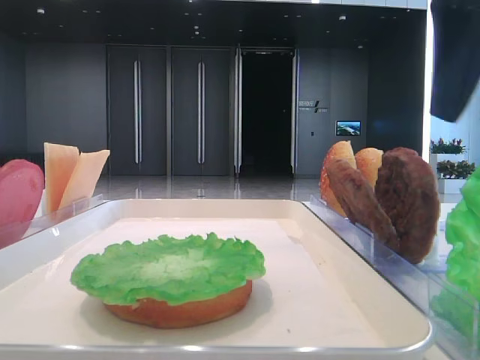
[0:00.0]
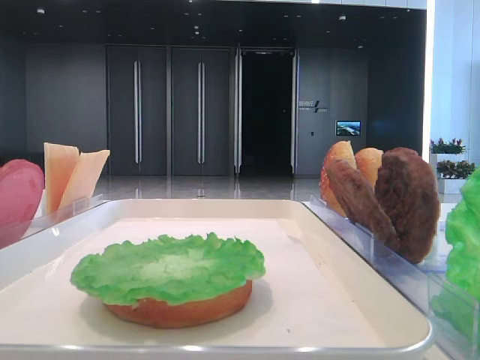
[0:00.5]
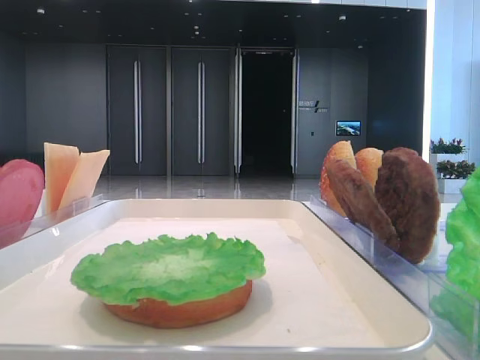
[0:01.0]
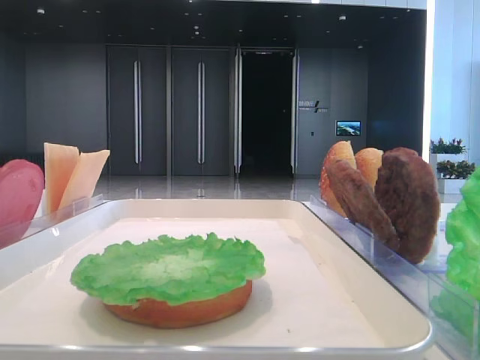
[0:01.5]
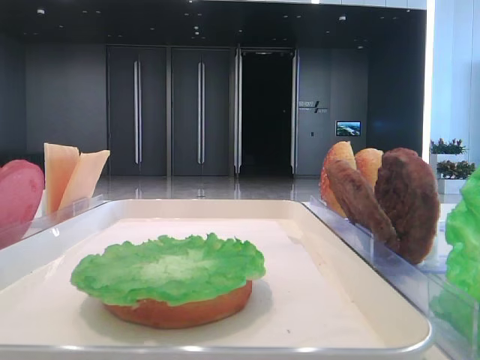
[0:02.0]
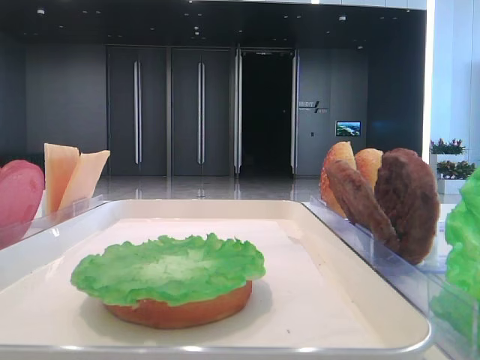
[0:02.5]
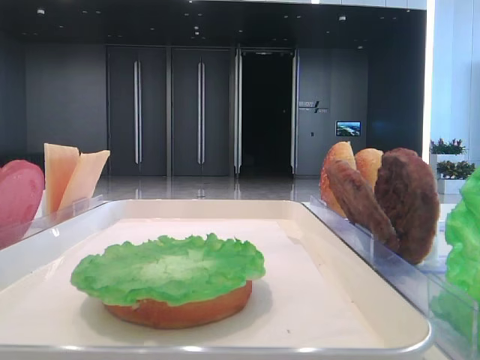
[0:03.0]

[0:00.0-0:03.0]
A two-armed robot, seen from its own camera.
0:00.0 to 0:01.5: The right gripper is displaced to the right by approximately 10 cm.

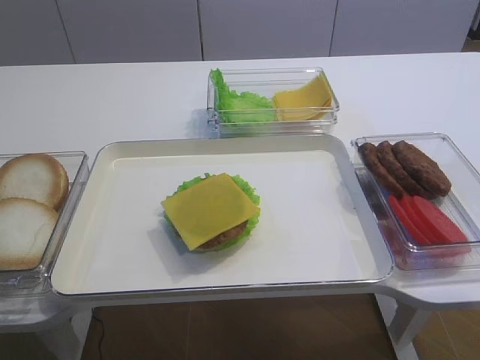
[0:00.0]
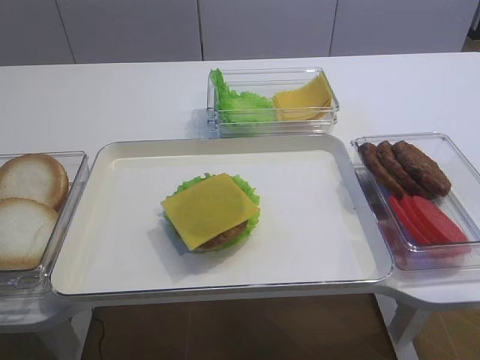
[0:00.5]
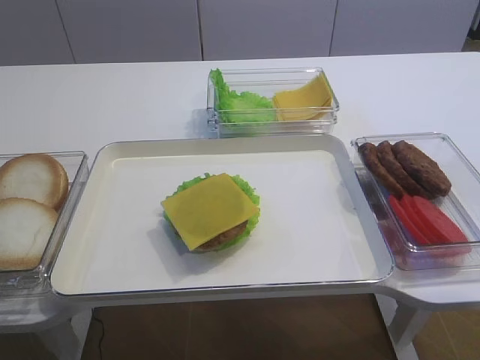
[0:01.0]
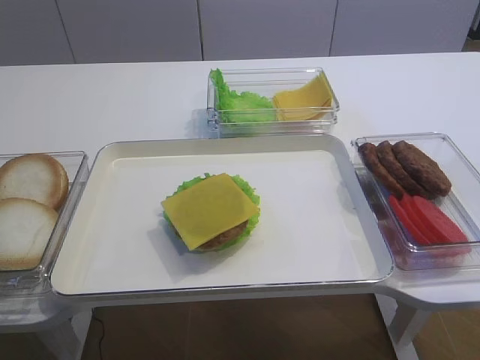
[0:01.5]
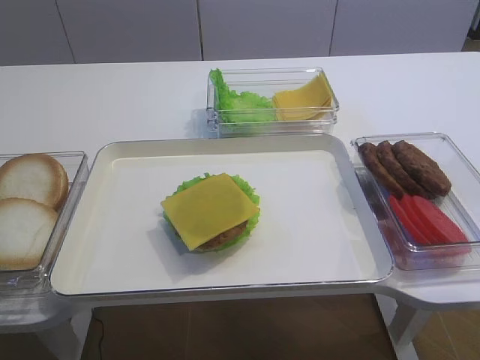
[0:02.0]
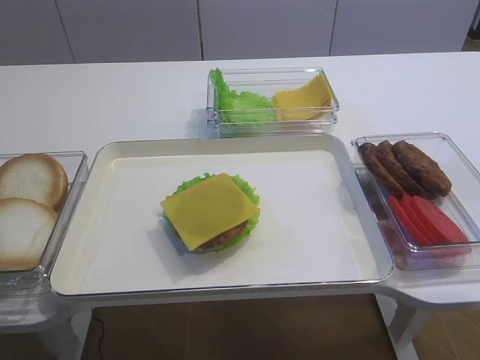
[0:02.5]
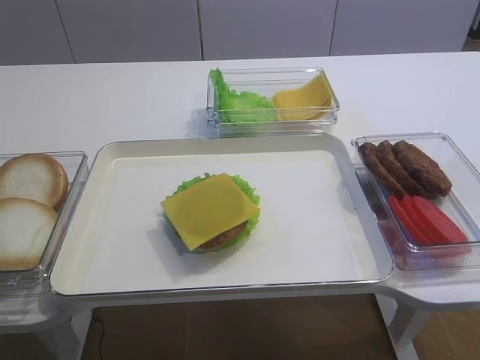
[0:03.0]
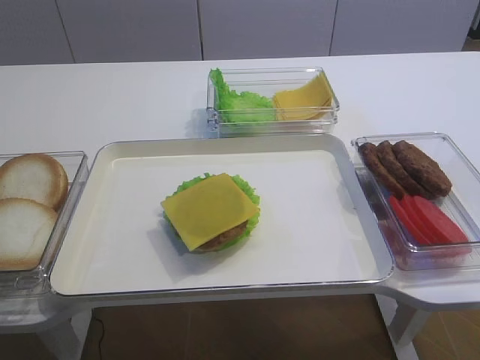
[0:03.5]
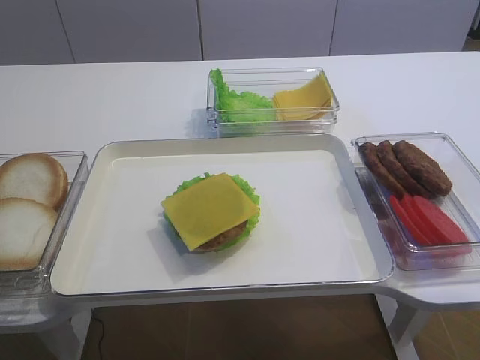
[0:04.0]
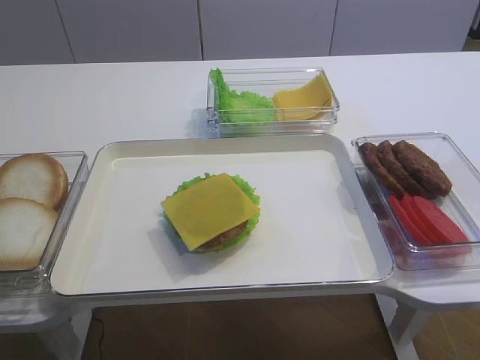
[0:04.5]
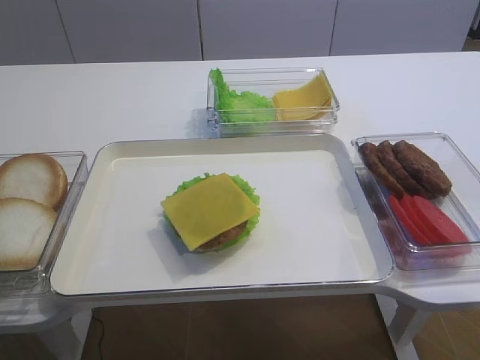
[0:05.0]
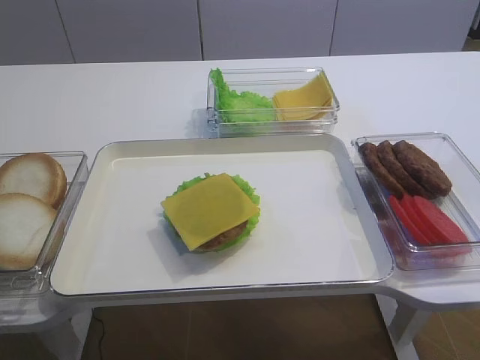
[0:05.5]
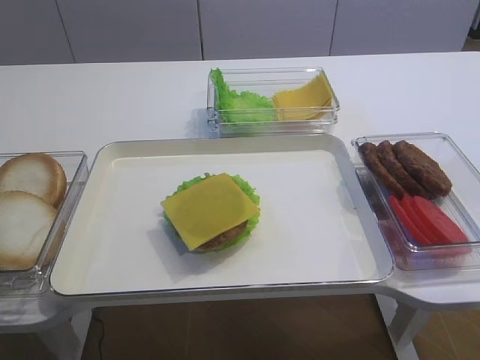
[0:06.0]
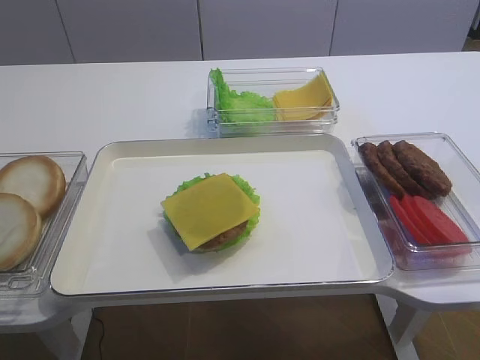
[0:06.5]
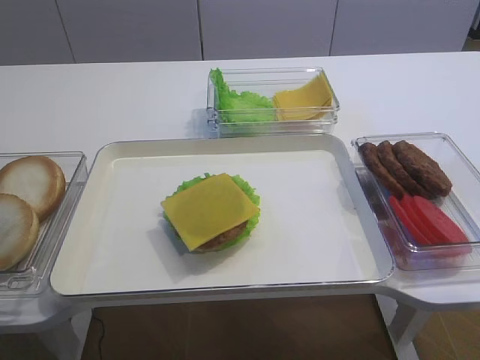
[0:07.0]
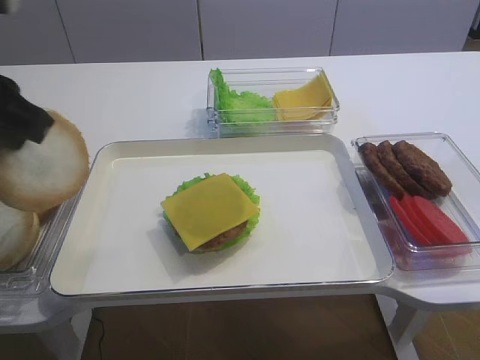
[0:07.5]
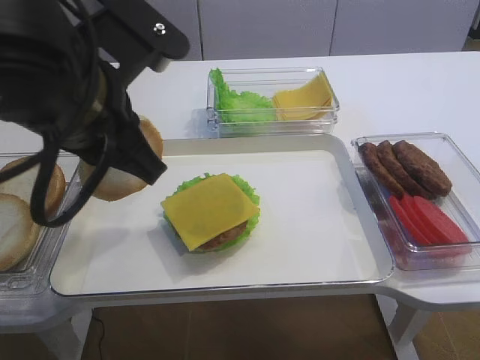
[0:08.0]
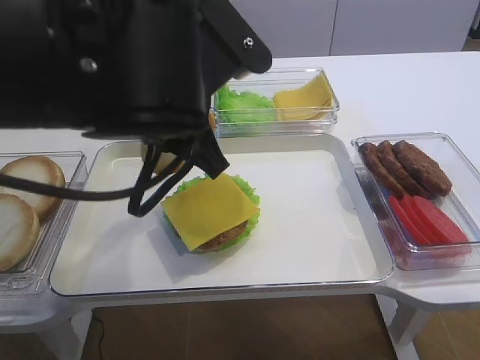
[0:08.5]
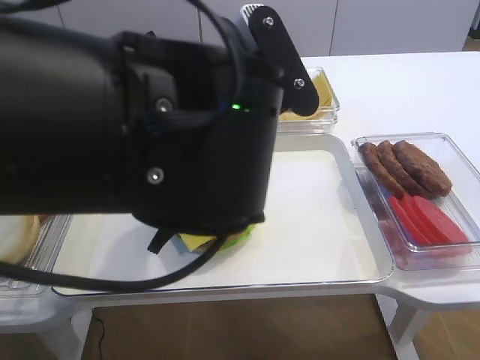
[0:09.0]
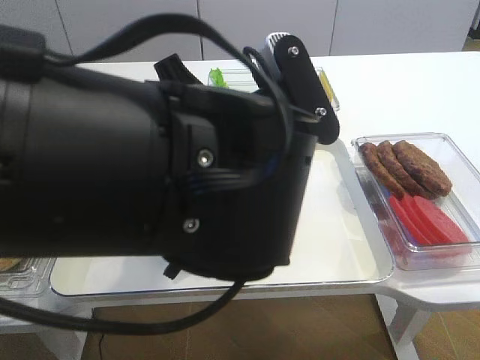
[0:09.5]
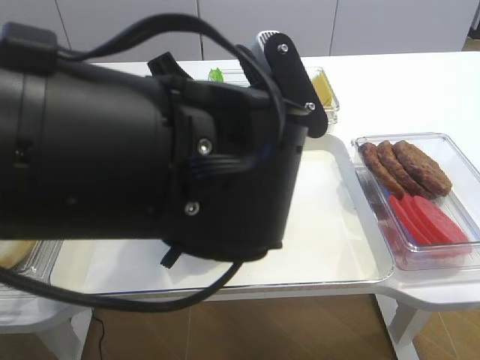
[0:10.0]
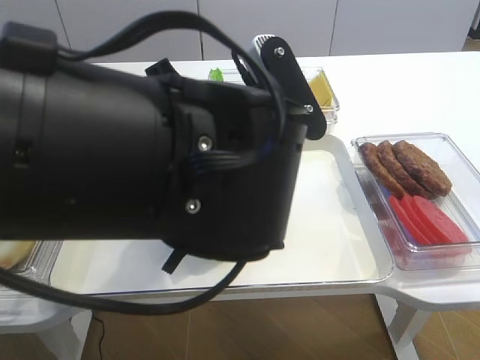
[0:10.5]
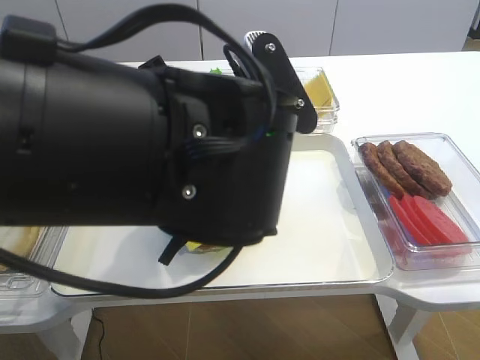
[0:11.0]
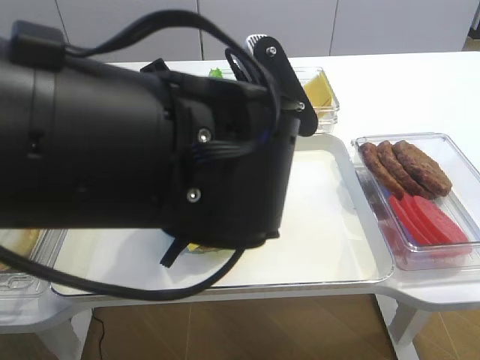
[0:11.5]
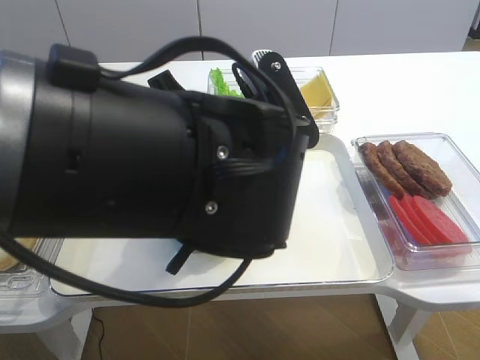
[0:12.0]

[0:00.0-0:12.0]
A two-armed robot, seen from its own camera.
Step, 0:00.0 to 0:07.0: Pick up the hamburger lid with the left gripper.
0:06.0 to 0:08.0: The left gripper moves to the right, some 20 cm.
0:08.0 to 0:10.0: The left gripper is displaced to the right by roughly 10 cm.
0:10.0 to 0:12.0: The grippers move only a little.

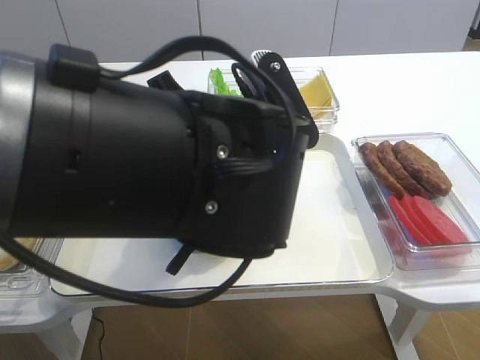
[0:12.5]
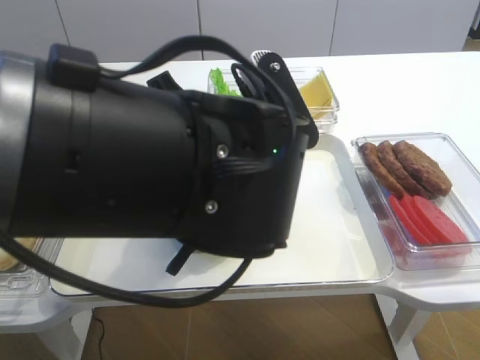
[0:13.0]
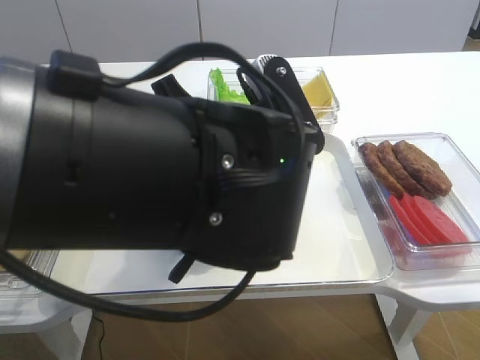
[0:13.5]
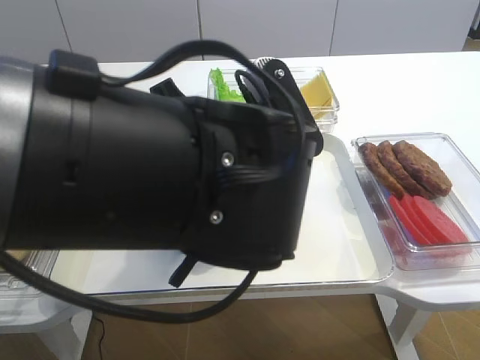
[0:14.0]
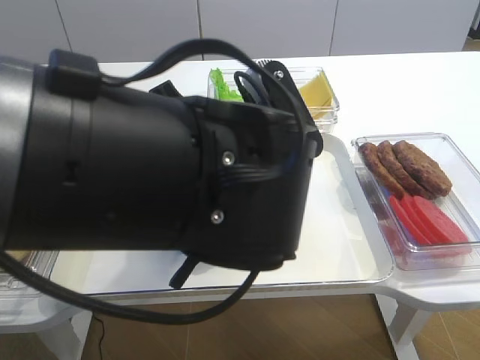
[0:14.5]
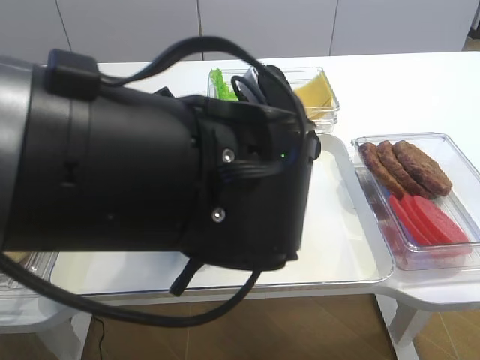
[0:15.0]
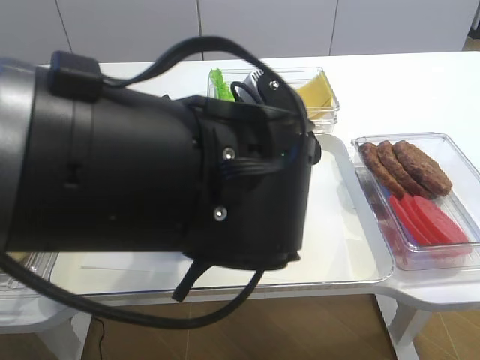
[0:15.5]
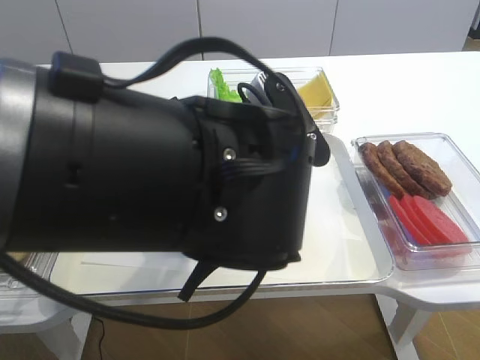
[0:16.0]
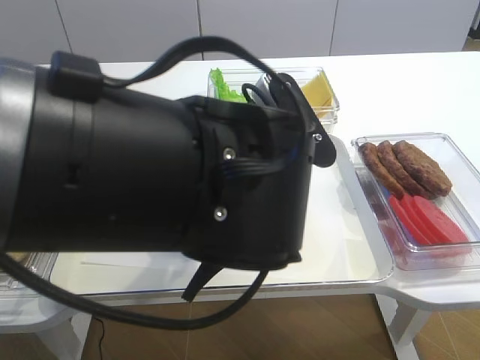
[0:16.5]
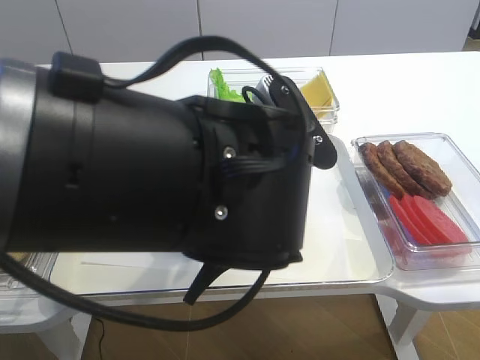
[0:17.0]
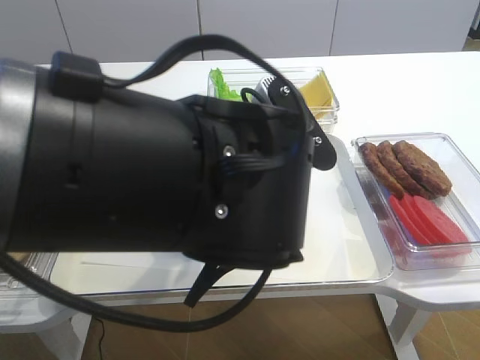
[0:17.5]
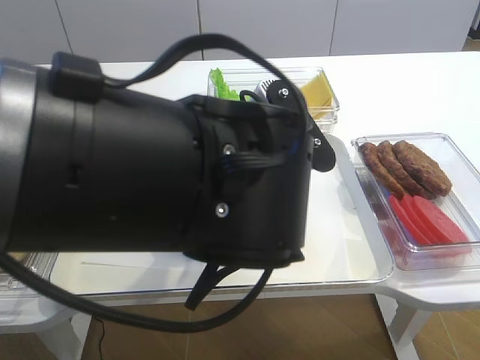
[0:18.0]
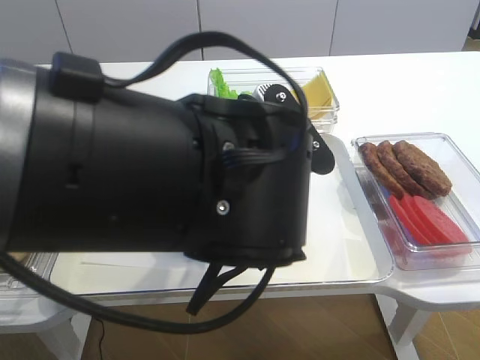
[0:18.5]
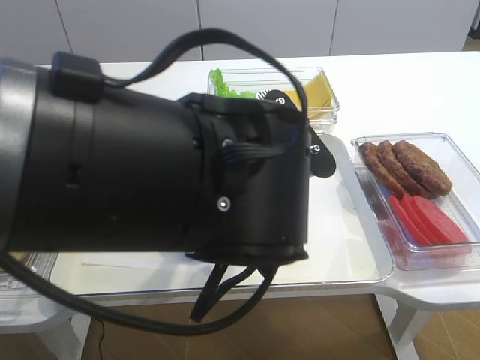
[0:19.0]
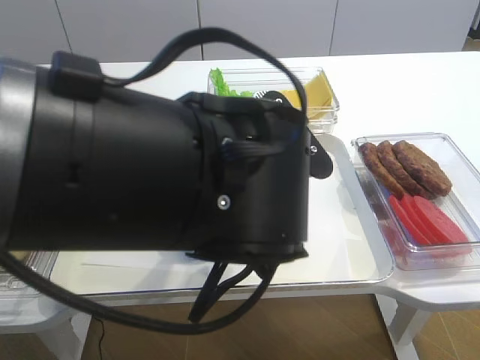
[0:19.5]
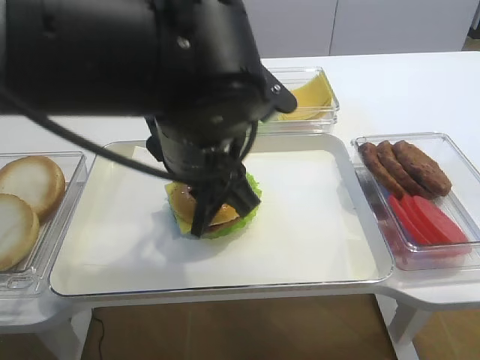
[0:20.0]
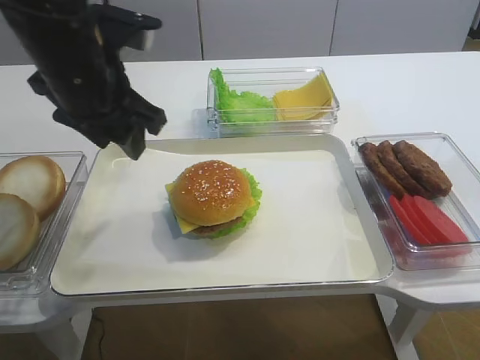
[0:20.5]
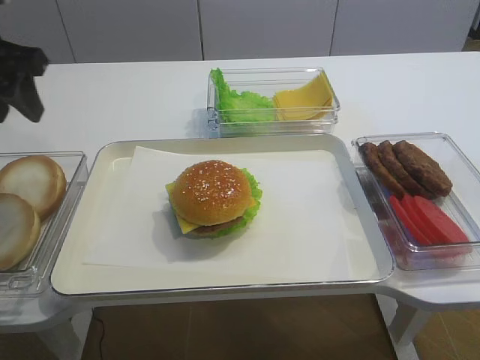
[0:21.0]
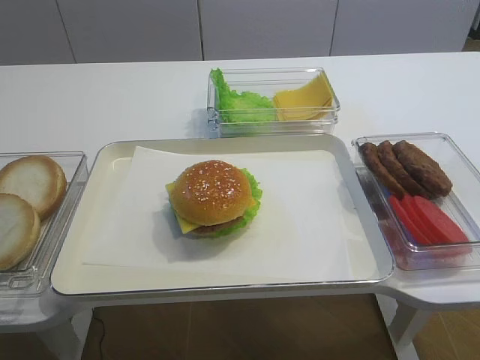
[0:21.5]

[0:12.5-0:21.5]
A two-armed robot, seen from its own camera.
Step, 0:12.5 to 0:20.0: Place the hamburger lid on the cheese slice with the left gripper.
0:12.5 to 0:14.5: Neither gripper changes place.
0:14.5 to 0:17.0: The grippers stay close to where they were, moving slightly.
0:17.0 to 0:19.5: The left gripper opens its fingers.
0:19.5 to 0:21.5: The left gripper heads to the left, covering about 30 cm.

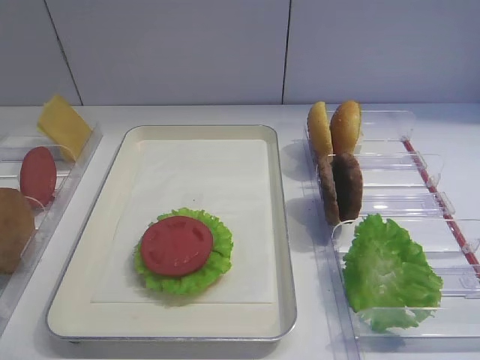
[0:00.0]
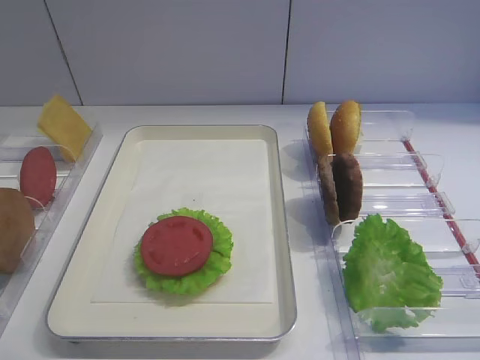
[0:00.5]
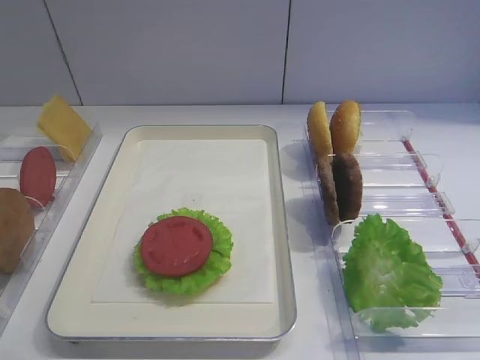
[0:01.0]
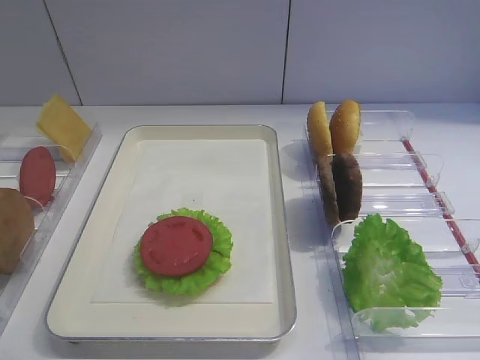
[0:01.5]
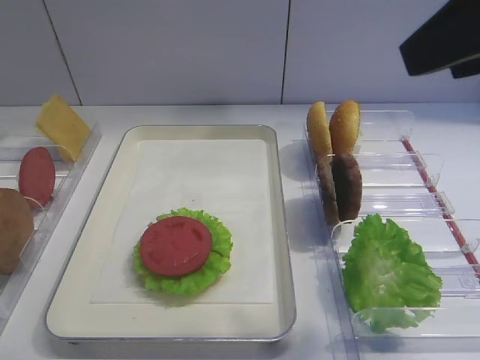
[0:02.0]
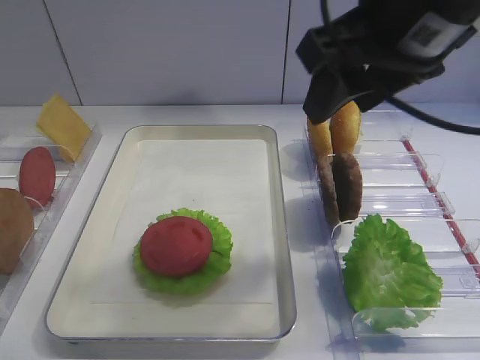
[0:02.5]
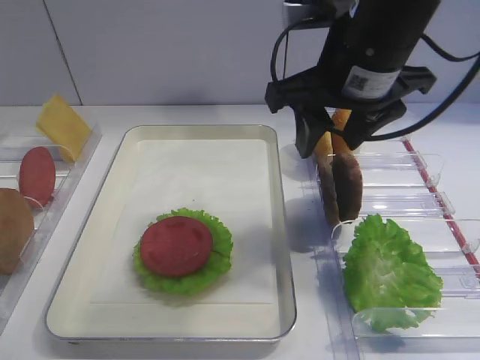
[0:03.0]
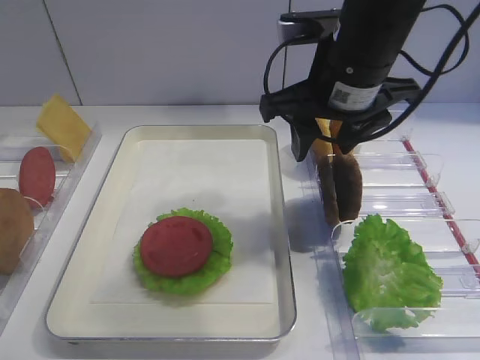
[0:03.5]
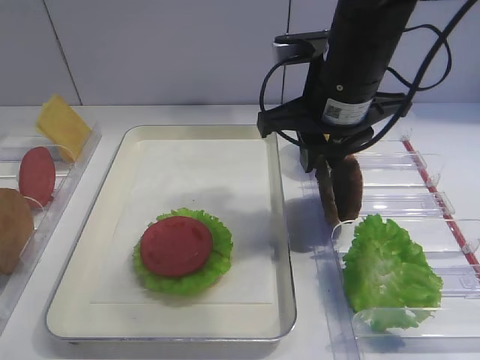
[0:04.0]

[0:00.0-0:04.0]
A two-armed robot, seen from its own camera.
0:02.0 to 0:04.0: The right gripper heads forward, downward and to the left, covering about 25 cm, and closes its fingers.
